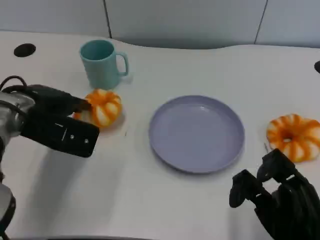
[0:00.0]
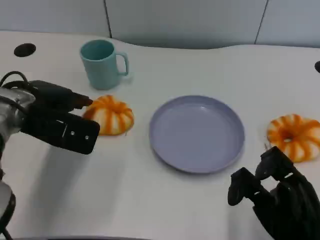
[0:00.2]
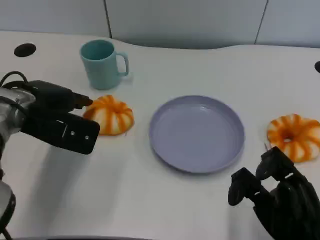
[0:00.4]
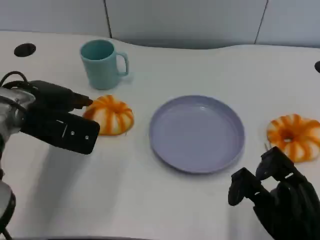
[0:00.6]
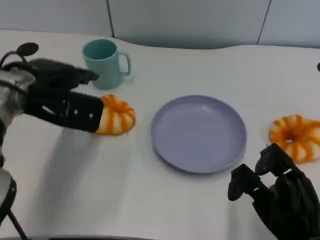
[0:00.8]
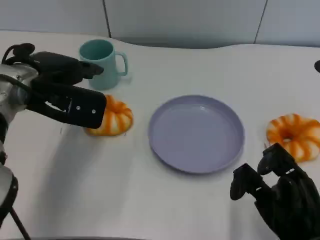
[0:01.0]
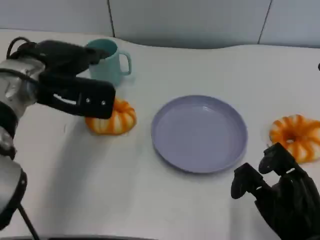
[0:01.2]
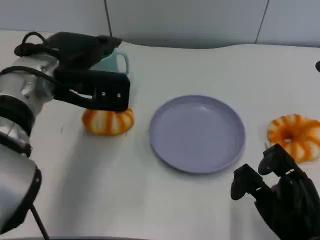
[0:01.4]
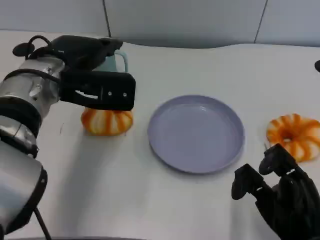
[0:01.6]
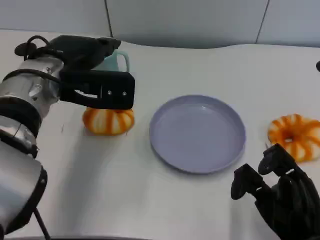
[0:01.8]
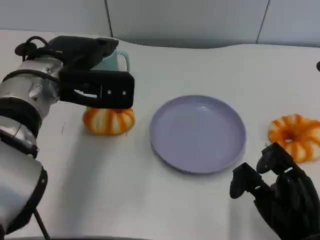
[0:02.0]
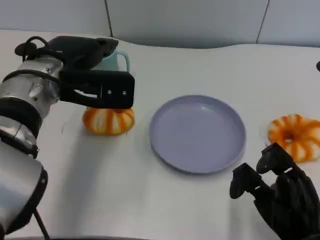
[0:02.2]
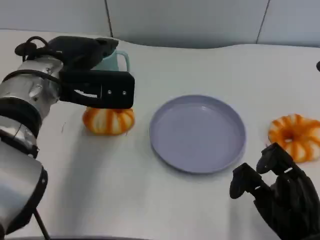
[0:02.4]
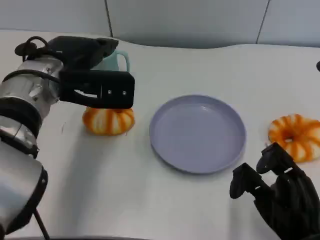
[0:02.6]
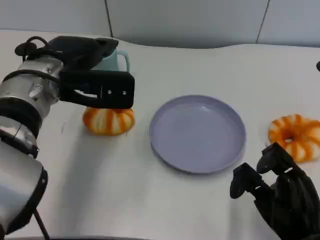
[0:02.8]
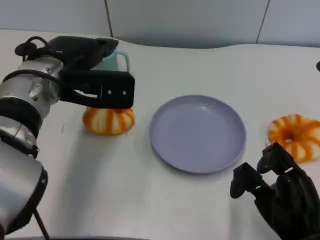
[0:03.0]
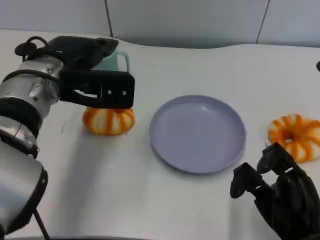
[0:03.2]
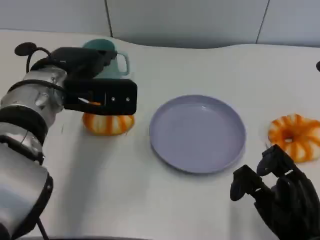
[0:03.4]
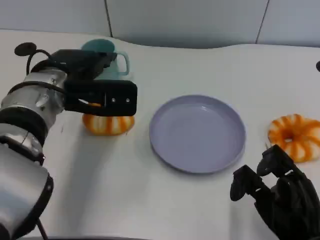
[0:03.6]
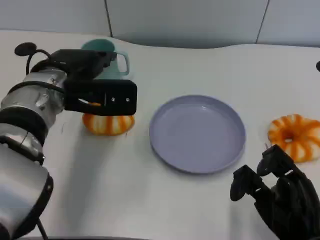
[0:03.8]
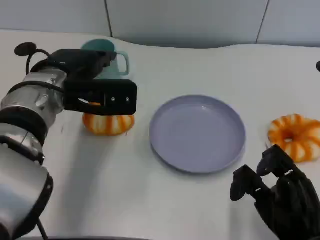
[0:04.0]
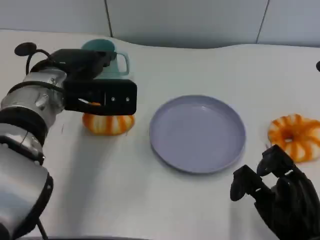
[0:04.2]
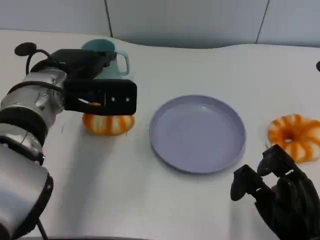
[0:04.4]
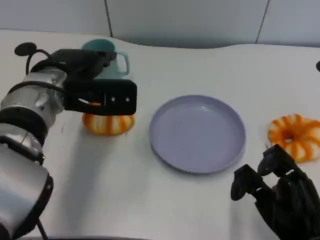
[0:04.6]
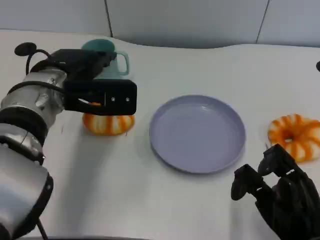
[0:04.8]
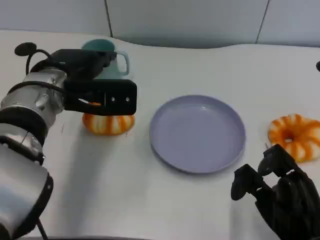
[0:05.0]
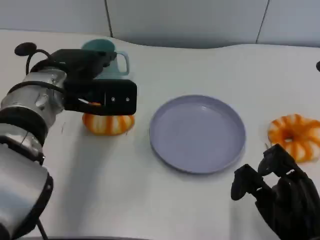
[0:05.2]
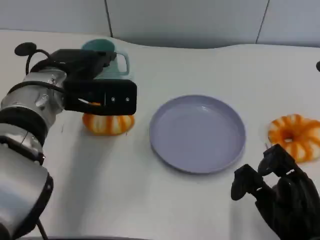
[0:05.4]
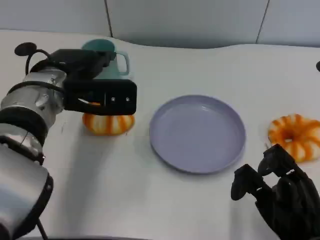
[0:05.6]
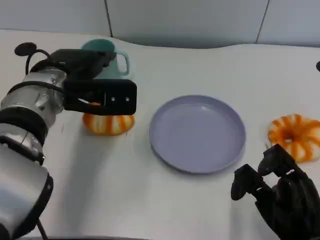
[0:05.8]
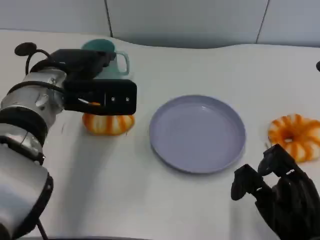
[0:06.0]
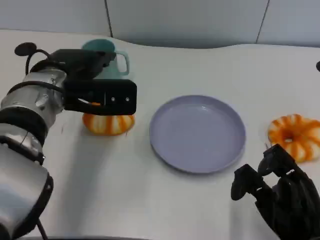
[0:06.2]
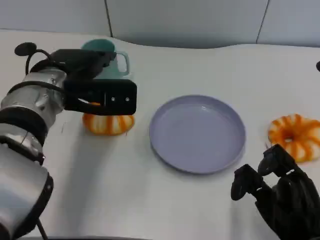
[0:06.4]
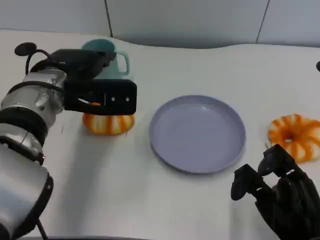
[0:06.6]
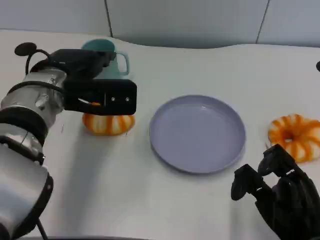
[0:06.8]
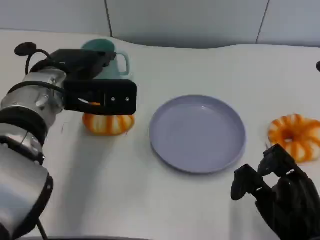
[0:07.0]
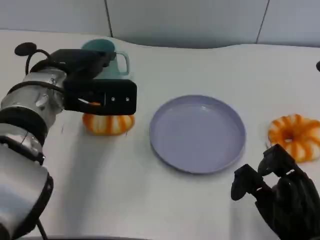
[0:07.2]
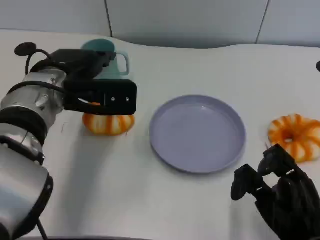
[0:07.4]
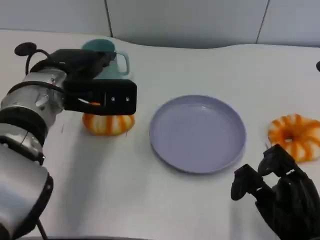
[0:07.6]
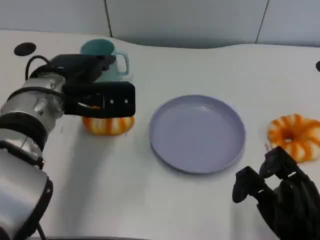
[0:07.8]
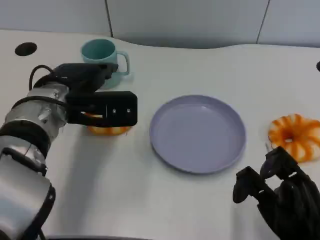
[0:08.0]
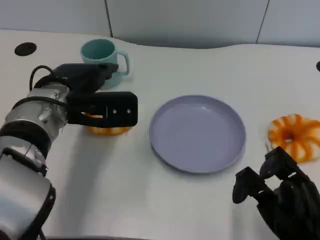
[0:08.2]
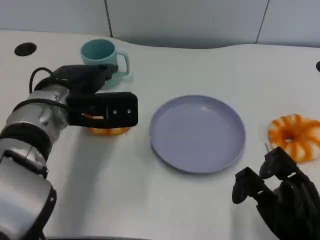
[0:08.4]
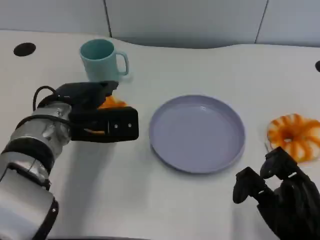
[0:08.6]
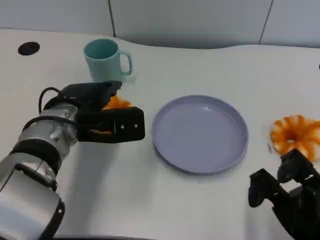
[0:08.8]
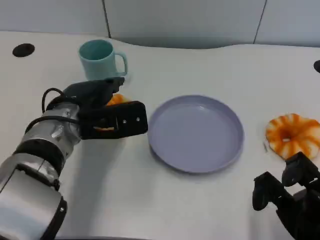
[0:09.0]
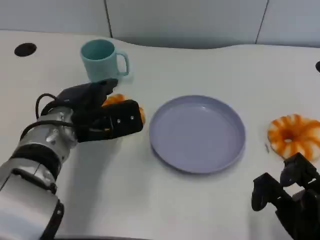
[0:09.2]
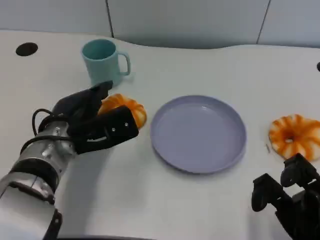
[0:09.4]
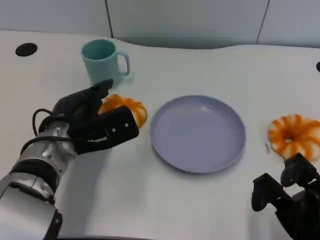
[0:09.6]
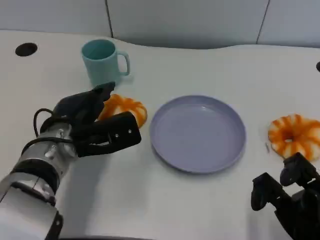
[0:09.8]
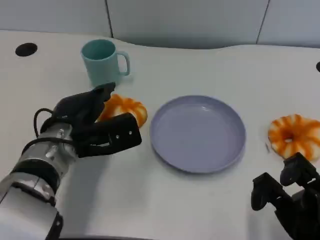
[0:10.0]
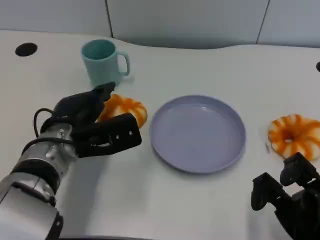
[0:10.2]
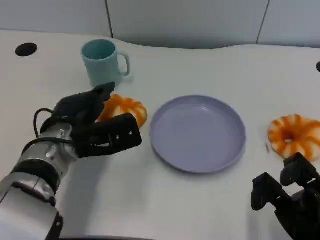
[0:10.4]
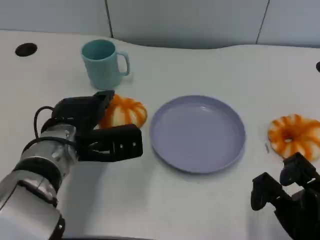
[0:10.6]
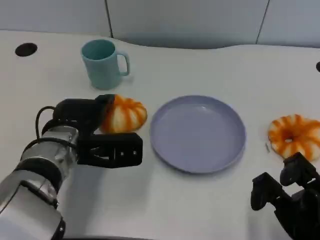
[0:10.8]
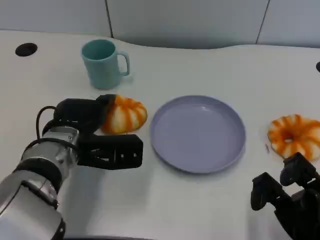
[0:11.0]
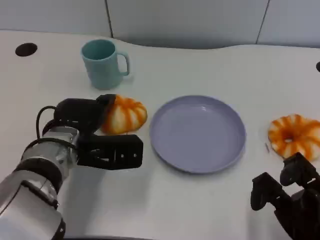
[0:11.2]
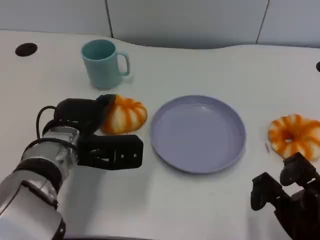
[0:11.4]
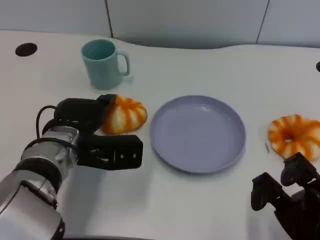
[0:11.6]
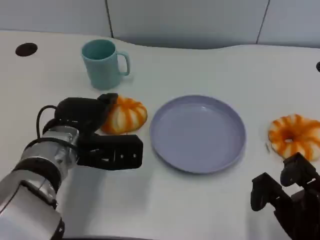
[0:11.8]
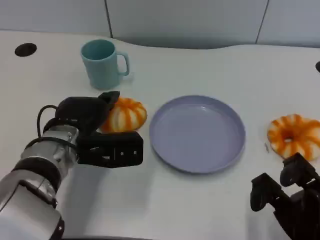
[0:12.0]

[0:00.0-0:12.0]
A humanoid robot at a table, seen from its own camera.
Task of the whole recording: Grasp the bread from the table and place it into the plate.
0.0 to 1.6 s: The left hand goes some 5 cm to the right.
1.6 to 3.0 s: Both hands stay about where they are.
3.0 to 4.4 s: The hands make only small movements.
4.4 to 7.6 s: Both hands stay about where they are.
7.6 to 9.0 s: The left hand heads downward, covering approximately 5 cm.
9.0 to 10.4 s: The hands stay close to where they were, moving slightly.

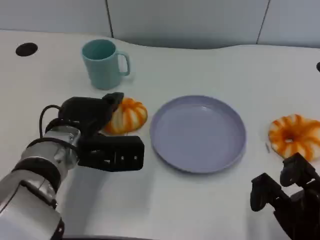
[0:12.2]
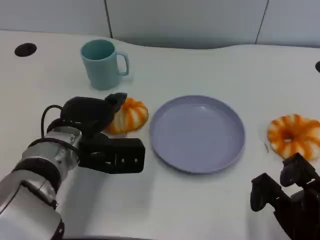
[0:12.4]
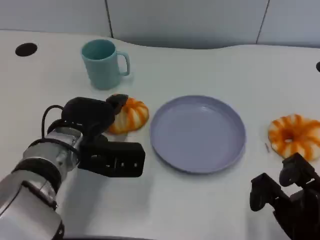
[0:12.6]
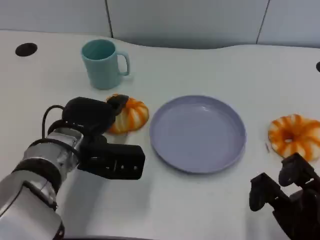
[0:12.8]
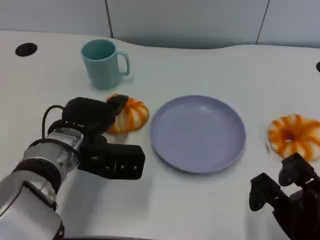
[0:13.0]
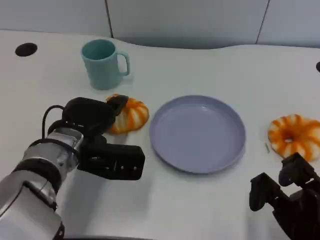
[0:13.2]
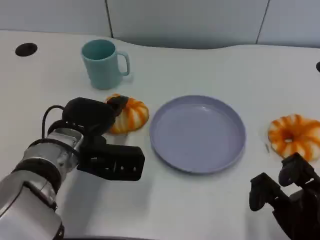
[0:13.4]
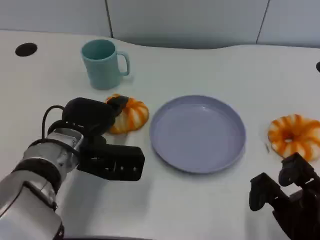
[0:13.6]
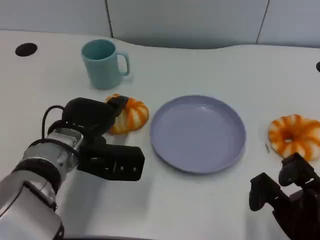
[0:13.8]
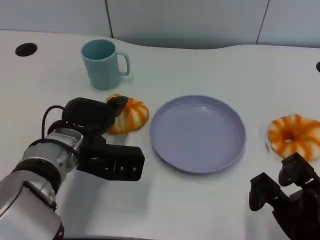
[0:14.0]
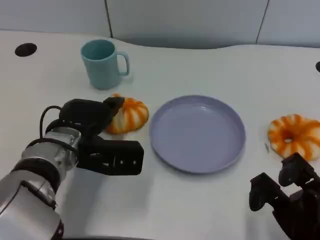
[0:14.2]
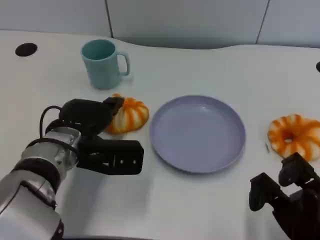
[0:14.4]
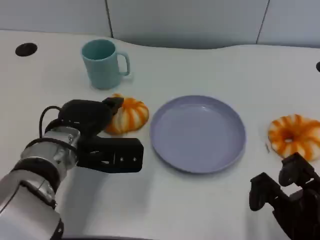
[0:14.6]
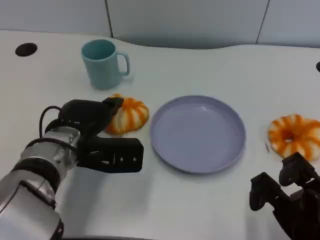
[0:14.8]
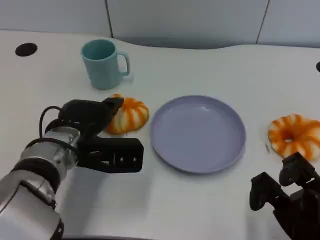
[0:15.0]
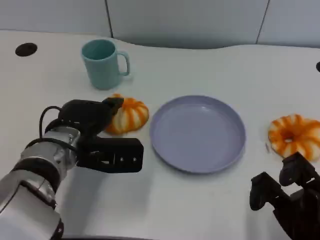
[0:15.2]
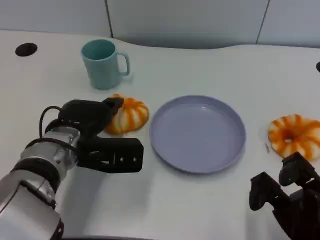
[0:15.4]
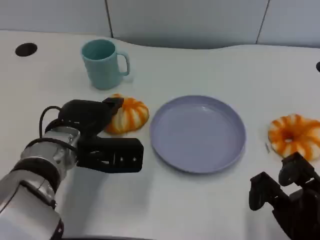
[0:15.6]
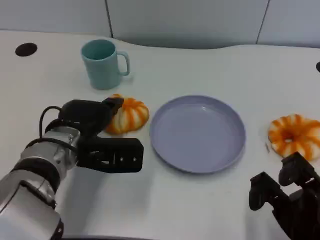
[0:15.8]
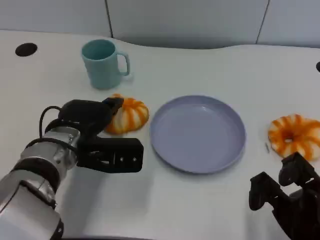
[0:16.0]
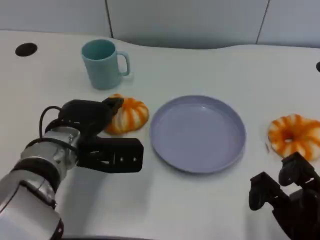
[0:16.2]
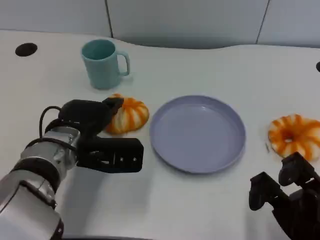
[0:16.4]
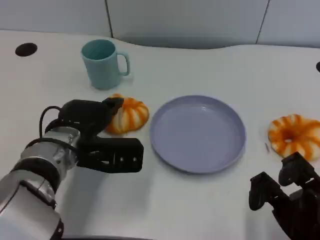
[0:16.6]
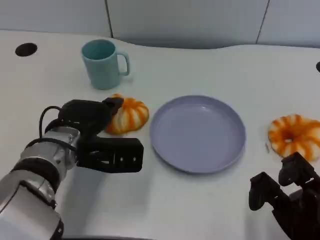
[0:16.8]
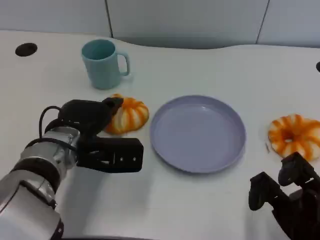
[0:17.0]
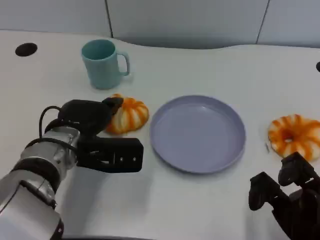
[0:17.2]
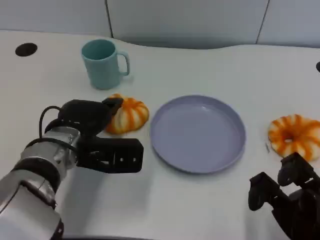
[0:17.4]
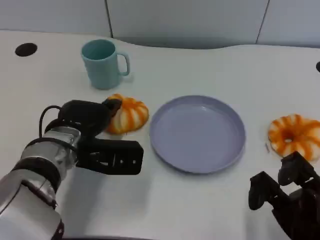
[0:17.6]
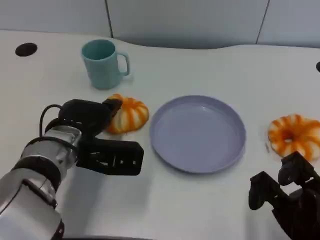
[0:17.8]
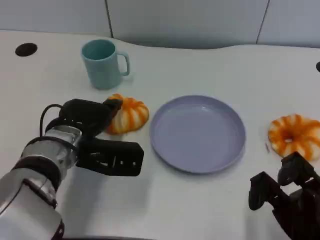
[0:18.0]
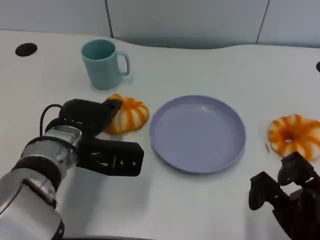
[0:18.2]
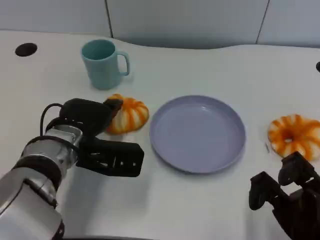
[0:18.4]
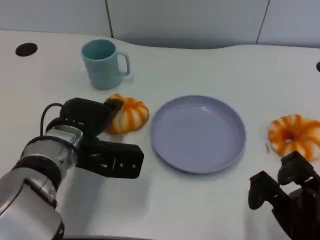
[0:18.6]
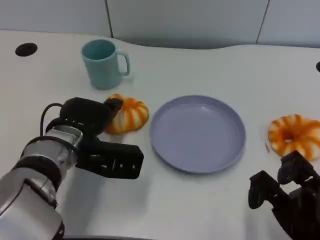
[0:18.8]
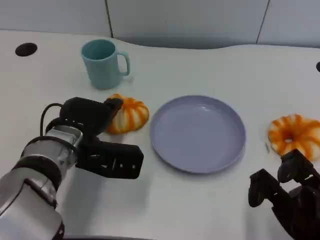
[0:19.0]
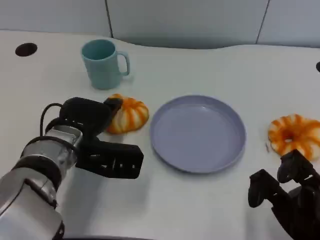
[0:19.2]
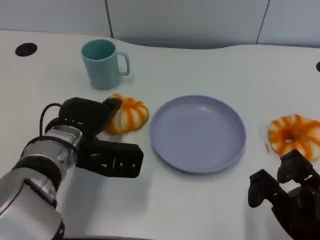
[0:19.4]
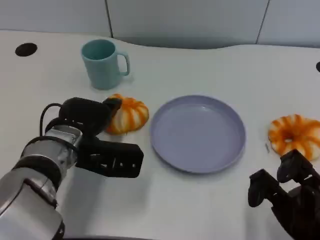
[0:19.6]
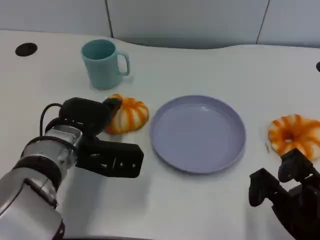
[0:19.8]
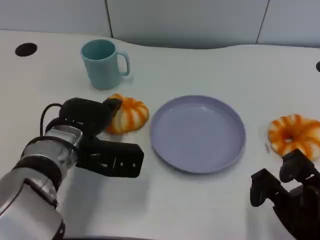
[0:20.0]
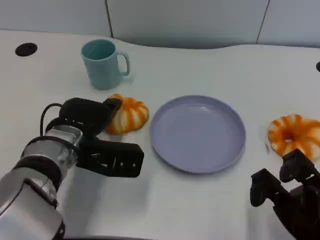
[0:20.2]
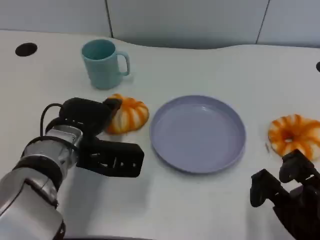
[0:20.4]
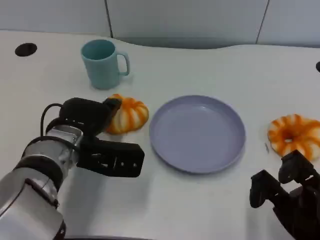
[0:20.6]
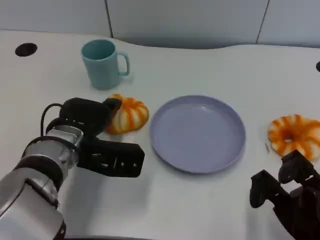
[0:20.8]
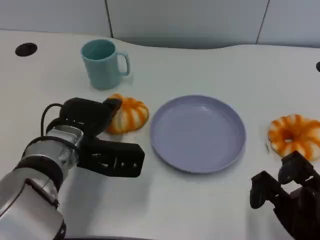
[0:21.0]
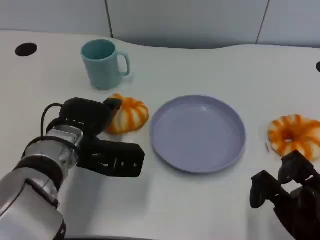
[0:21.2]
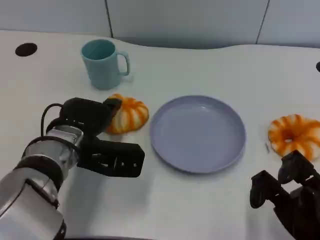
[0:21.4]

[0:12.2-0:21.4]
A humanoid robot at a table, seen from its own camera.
Task of the whole recording: Grasp the bread from the table and place it into the plate.
12.2 to 15.2 s: There are only small adjustments of the hands.
15.2 to 16.8 s: Both hands stay about where they are.
16.8 to 18.4 s: The hands make only small movements.
18.4 to 21.4 s: Both hands stay put.

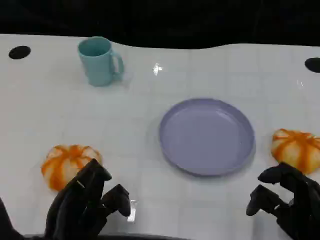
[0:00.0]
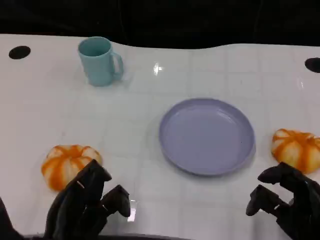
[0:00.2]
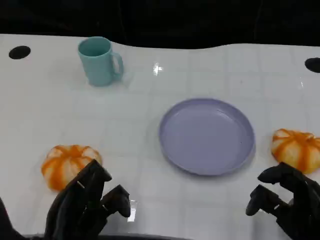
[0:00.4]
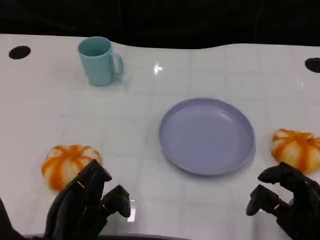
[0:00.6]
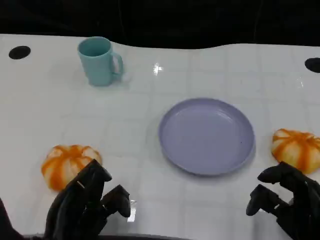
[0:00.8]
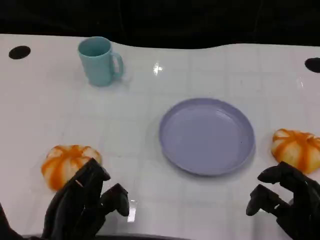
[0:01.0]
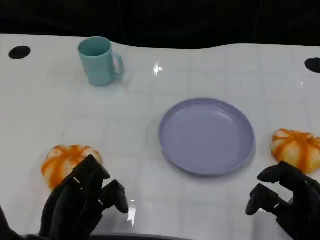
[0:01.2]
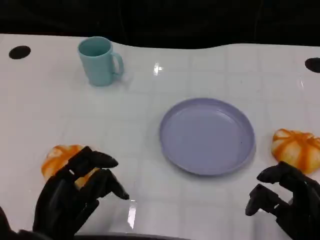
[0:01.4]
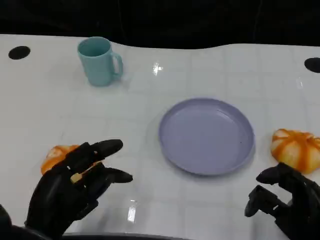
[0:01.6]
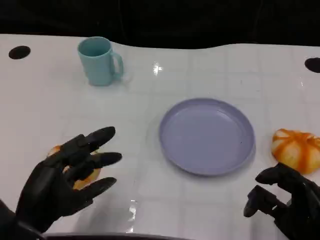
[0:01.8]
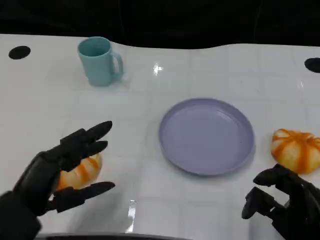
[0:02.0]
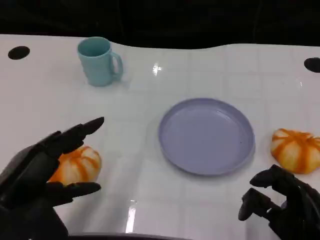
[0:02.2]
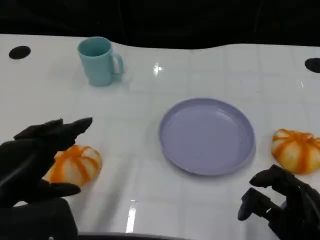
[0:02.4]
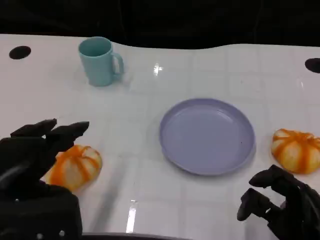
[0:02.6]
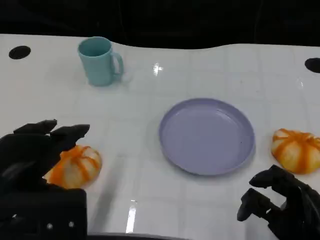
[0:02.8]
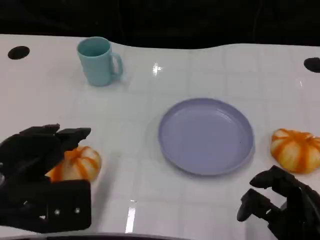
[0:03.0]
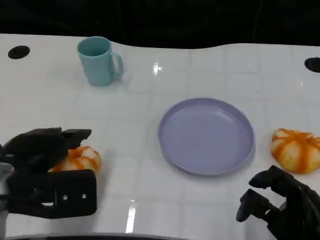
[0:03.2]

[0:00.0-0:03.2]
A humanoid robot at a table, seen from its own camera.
Task of the whole recording: Grasp the bread from the table and place it into the plate.
1.6 to 3.2 s: The left hand shifts approximately 10 cm upward and forward.
